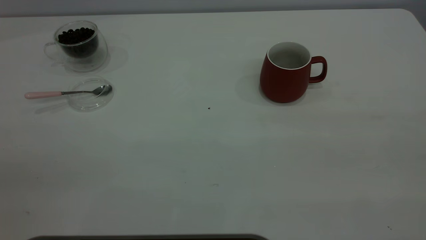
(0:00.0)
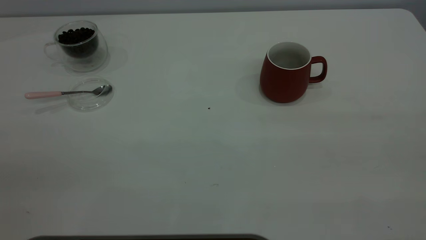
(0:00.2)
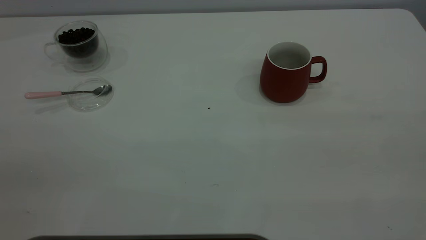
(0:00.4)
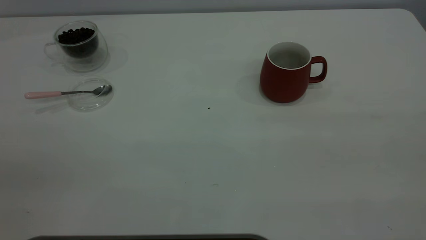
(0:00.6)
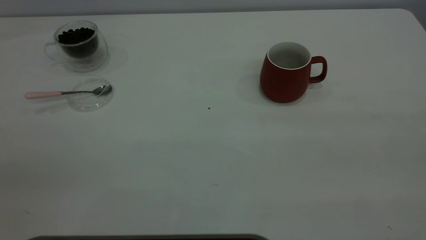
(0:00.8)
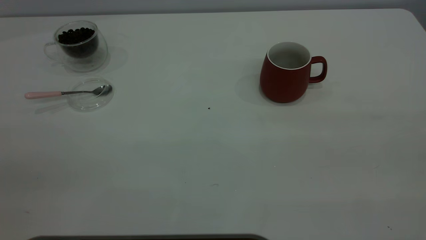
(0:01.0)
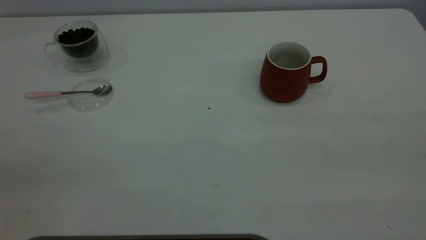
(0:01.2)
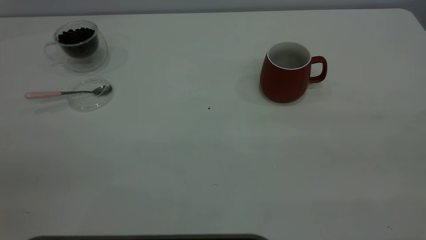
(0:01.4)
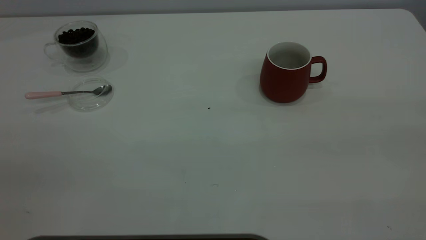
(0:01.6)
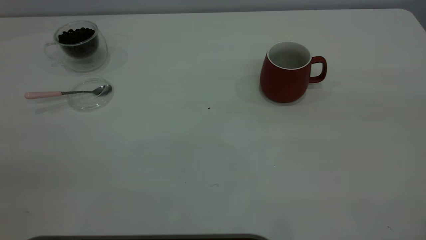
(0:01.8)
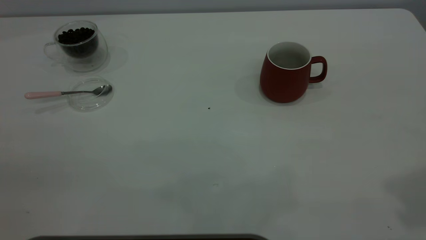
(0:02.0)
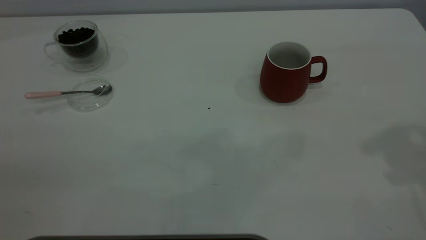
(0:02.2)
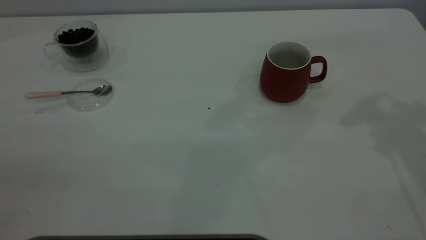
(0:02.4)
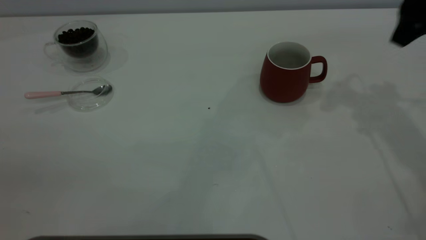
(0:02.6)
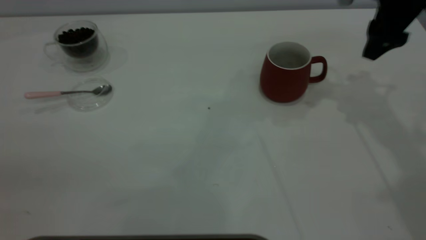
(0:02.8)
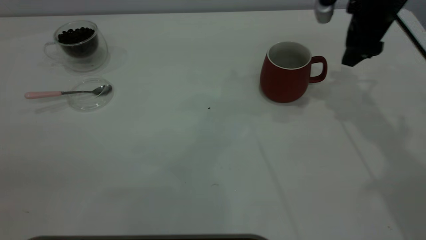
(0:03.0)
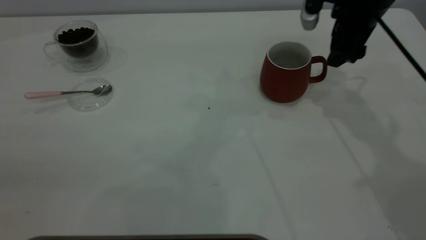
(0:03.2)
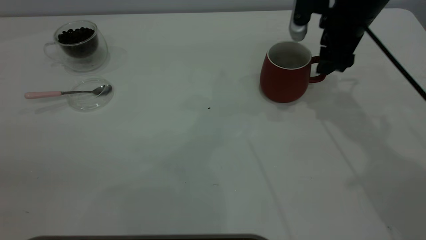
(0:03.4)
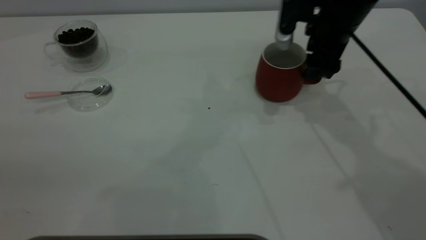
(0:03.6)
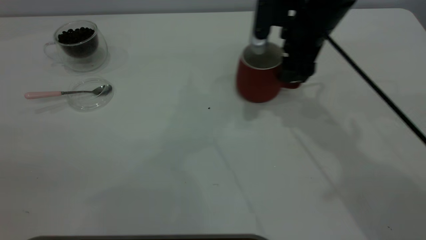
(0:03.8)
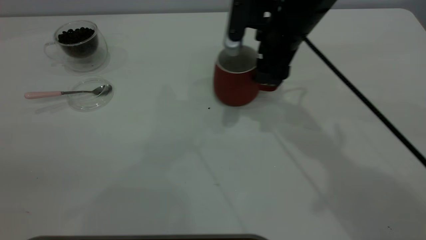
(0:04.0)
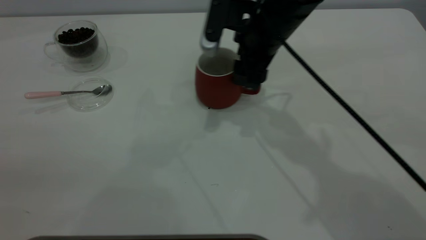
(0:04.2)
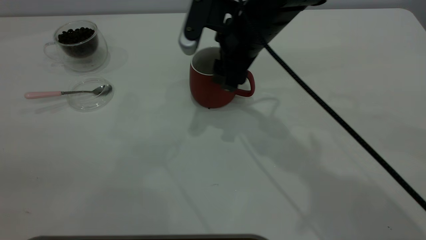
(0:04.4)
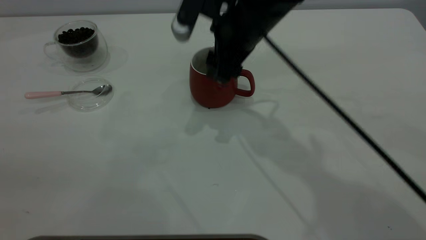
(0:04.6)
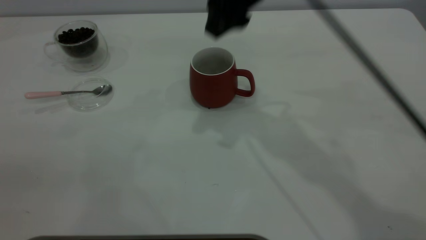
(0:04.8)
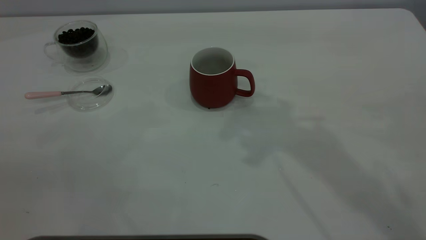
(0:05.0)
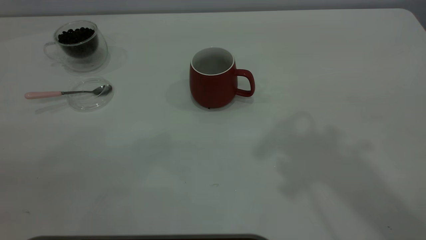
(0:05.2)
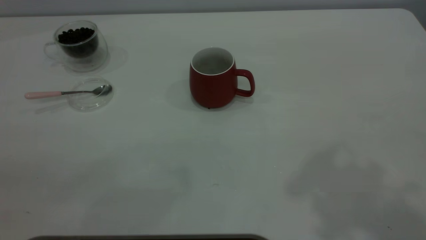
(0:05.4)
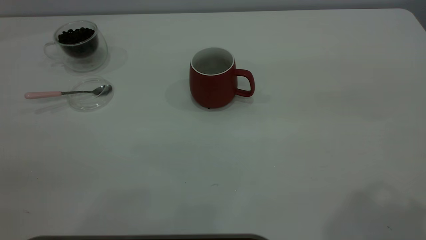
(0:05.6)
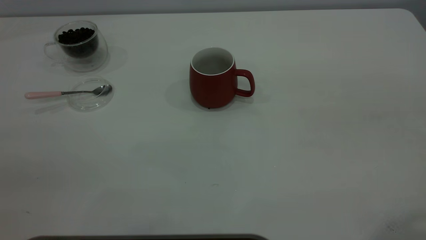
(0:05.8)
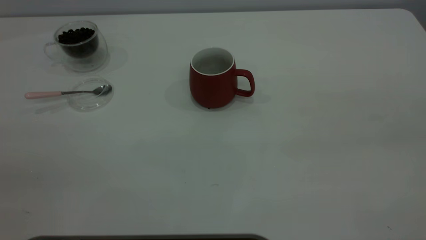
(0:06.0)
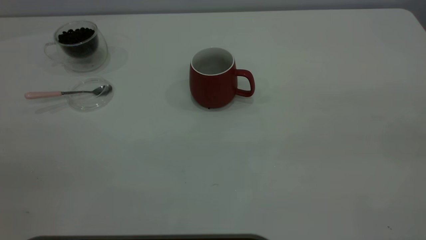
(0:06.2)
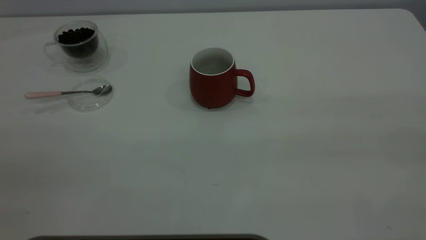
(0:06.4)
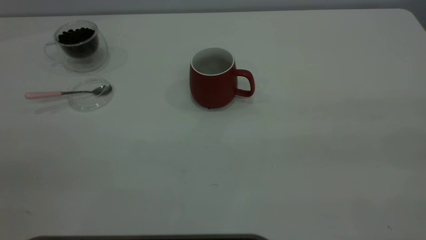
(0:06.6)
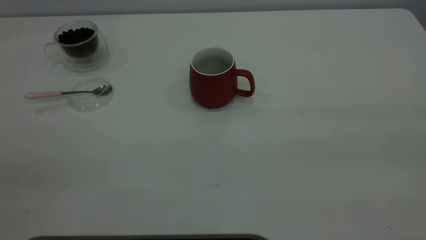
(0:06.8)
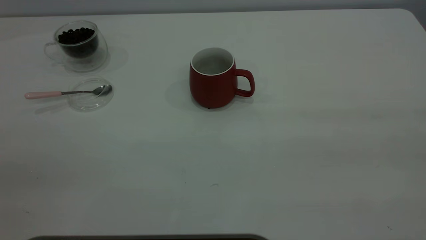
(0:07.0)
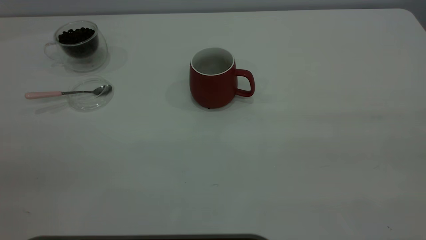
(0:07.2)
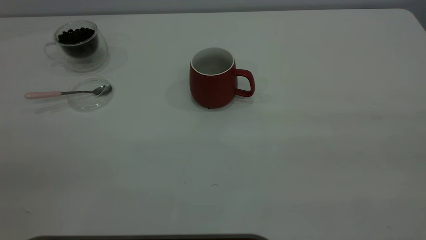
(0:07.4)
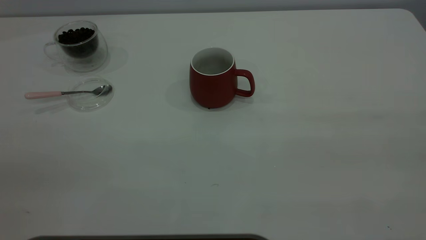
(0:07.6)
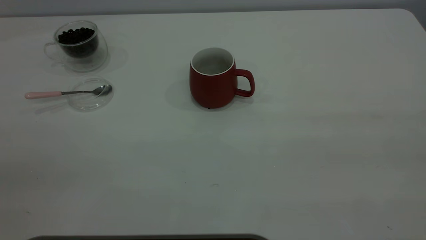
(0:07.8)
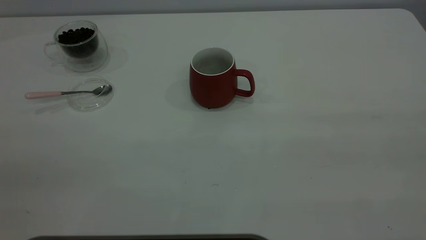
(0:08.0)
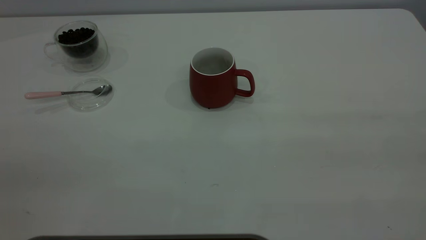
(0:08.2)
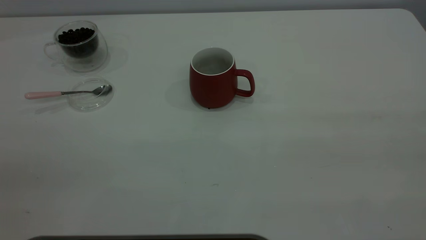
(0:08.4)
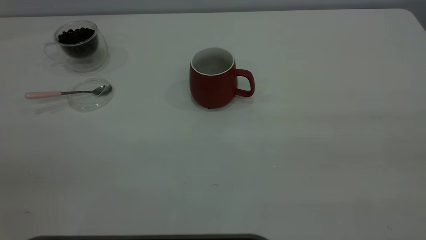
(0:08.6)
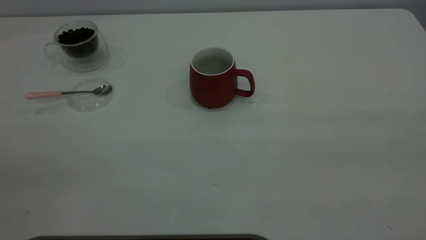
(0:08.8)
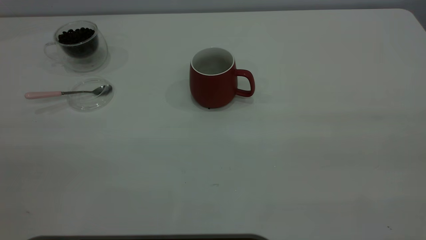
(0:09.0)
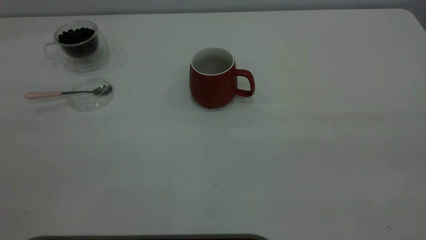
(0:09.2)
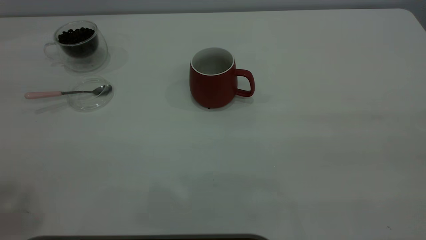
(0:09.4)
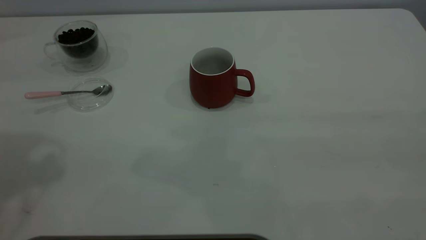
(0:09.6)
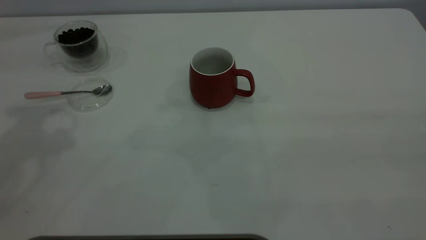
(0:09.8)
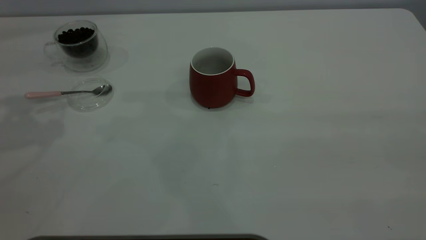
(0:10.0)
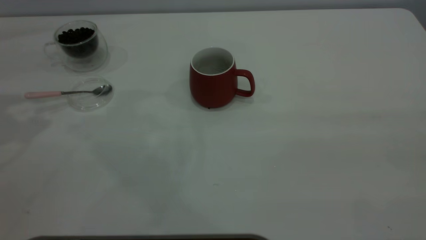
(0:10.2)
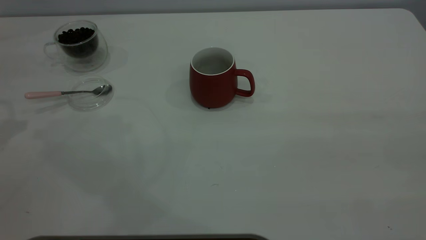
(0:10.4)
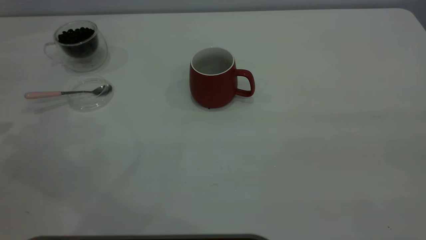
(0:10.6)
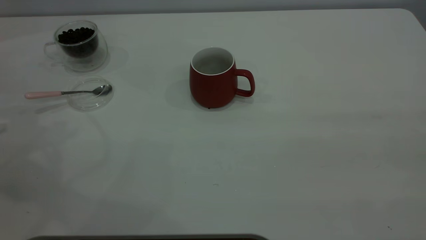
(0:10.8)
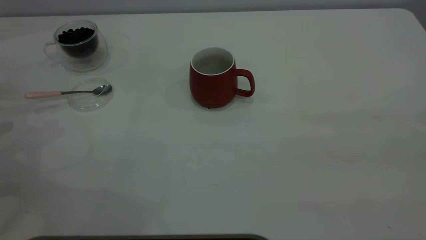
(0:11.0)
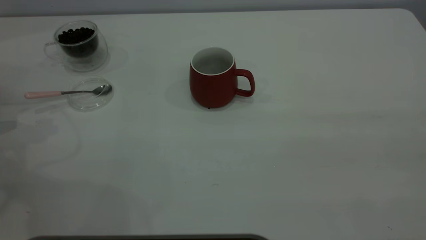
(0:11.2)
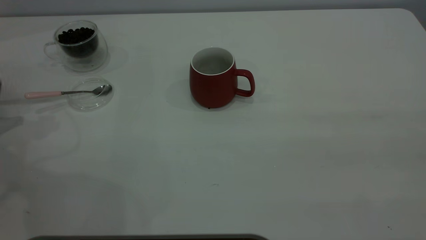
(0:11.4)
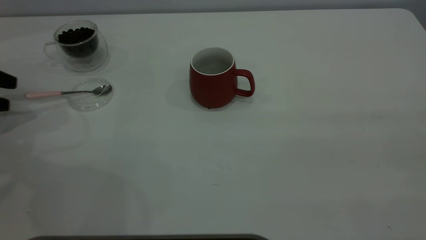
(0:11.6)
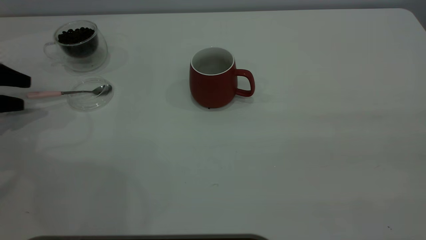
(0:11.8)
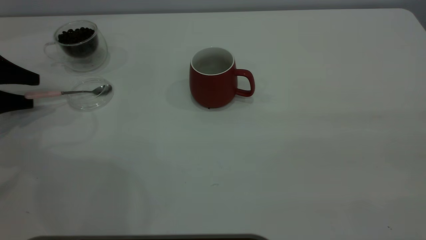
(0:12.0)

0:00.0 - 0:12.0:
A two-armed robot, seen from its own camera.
Task of the whole recording: the right gripper place the red cup in the center of the table, the left gripper take the pink spoon from the cup lid and scoop out the coffee beans from the coffee cup and put them into the red cup, the left gripper put the spoon back into the cup lid.
Step, 0:00.0 - 0:04.6: Move the cup to the center of view.
0:01.6 - 0:03.0: The right gripper is displaced forward and downward by some 40 cm, and opens up.
0:03.0 - 0:04.4: The right gripper heads to the left, covering about 20 cm, and closes its fingers.
0:04.4 - 0:06.0: The right gripper heads backward, upward and to the right, covering approximately 40 cm.
0:10.4 - 0:12.0: The left gripper shifts approximately 20 cm downward.

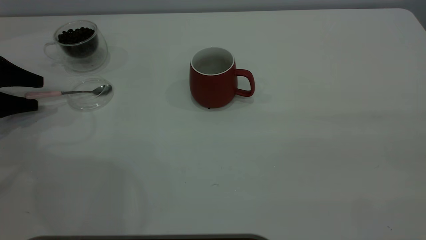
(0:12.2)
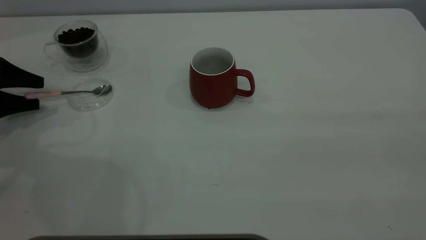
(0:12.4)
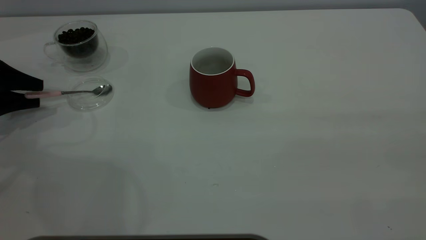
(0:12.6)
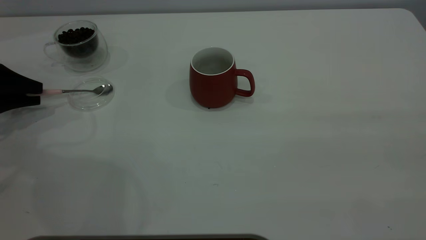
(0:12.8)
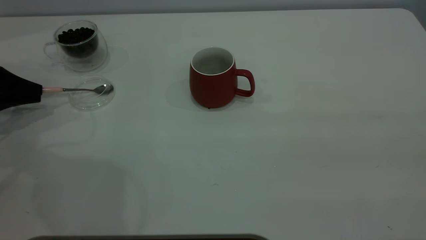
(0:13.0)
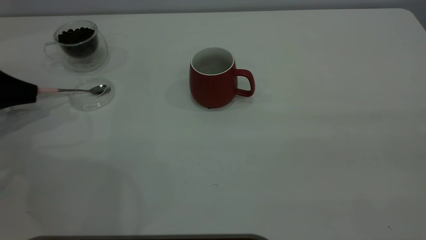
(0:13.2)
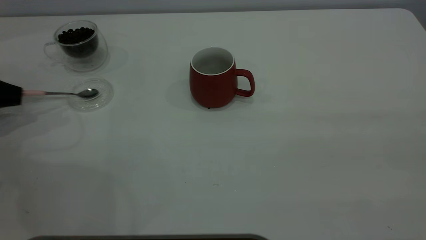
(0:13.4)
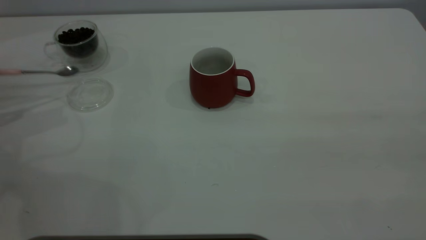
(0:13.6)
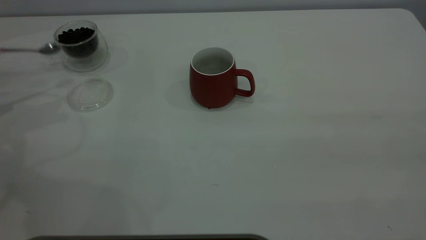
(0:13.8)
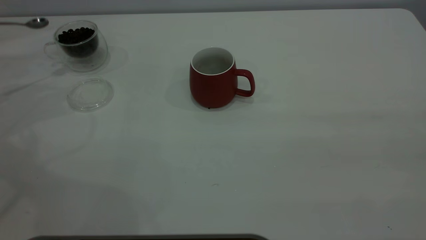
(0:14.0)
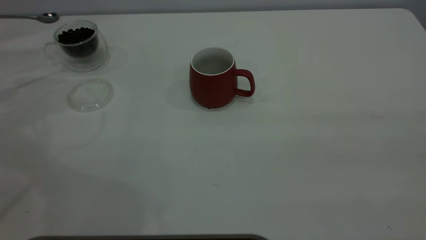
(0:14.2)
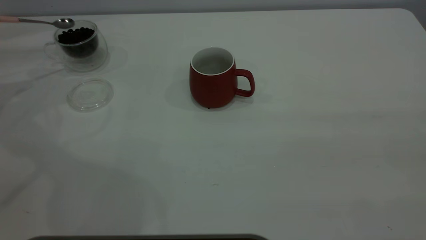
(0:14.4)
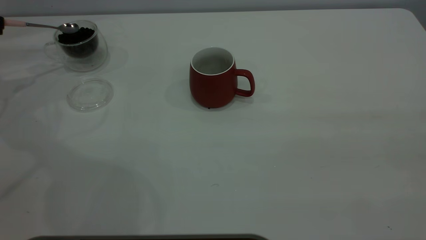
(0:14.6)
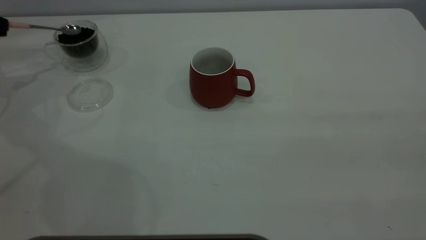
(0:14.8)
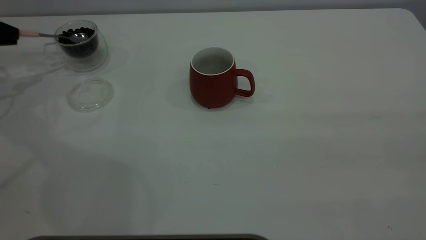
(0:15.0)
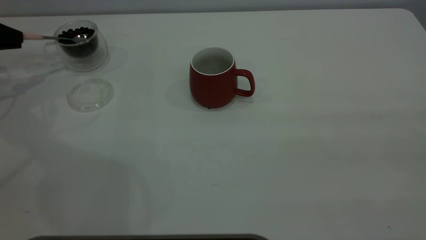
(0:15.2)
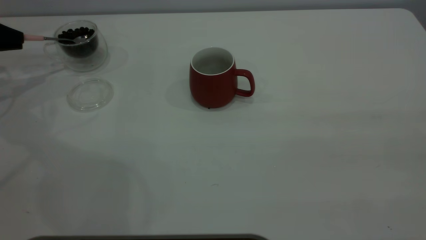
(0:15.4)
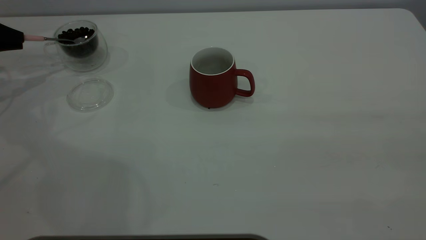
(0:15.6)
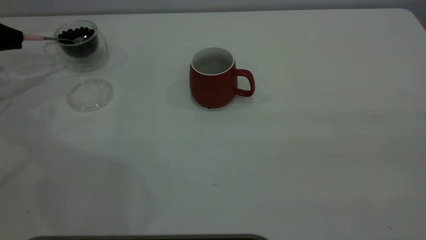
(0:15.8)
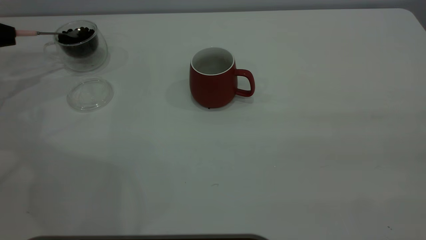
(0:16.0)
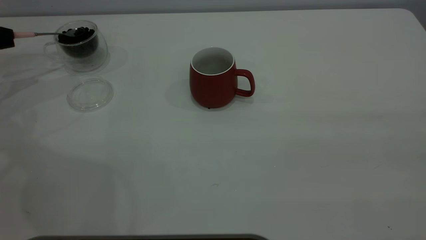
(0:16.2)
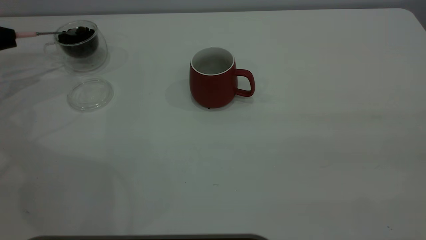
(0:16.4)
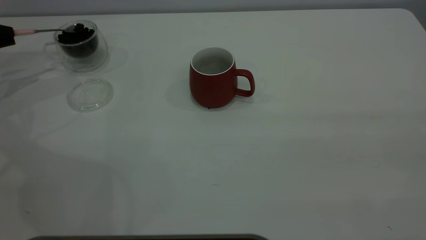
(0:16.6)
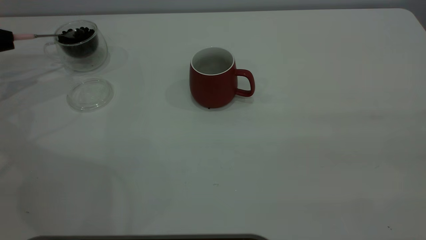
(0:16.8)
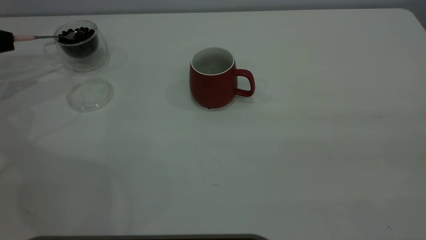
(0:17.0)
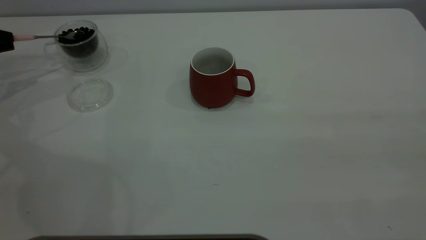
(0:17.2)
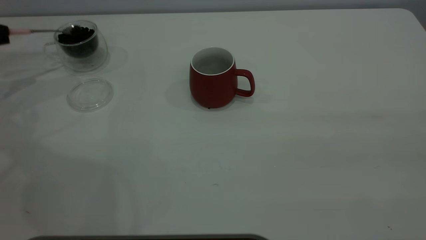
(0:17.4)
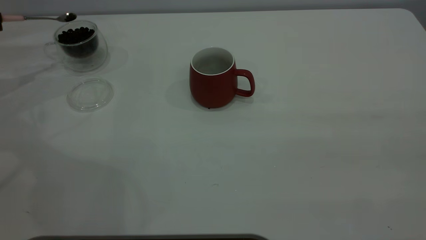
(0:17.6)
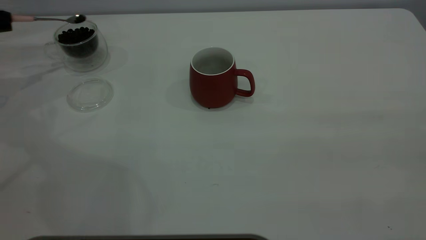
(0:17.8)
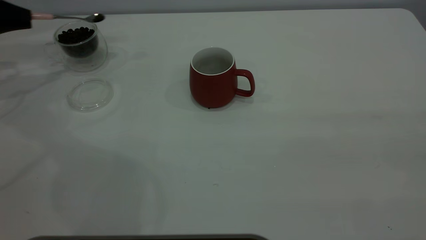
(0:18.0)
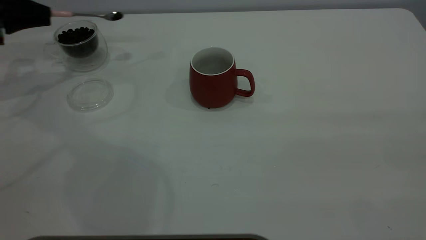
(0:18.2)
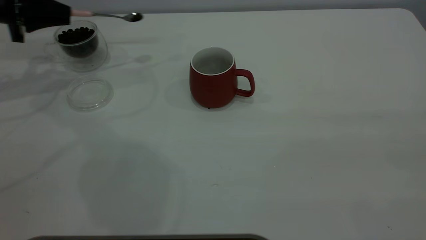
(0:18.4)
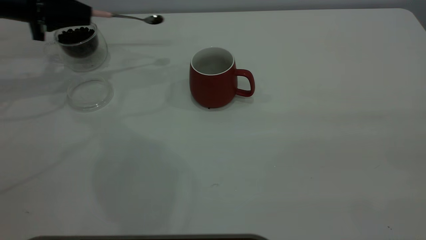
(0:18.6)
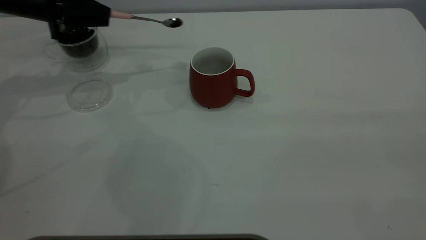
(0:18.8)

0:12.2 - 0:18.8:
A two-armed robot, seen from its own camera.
Task of the whole recording: the right gripper place the red cup in the center of the table, the left gripper take the pink spoon from the cup lid and scoop out the coffee beans from the coffee cup and put them into the red cup, the left gripper put the spoon back into the cup lid.
0:12.2 - 0:13.8: The left gripper moves upward and to the left, approximately 10 cm, and closes its fingers.
0:13.8 - 0:15.4: The left gripper shifts approximately 10 cm forward.
0:17.2 - 0:18.8: The left gripper heads to the right, covering some 20 cm.
